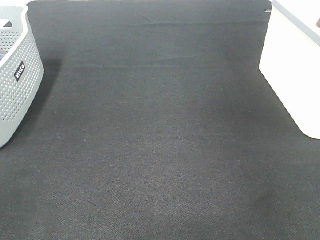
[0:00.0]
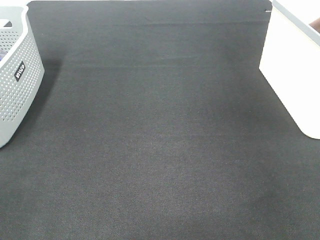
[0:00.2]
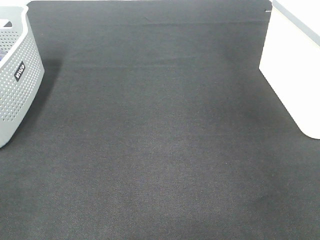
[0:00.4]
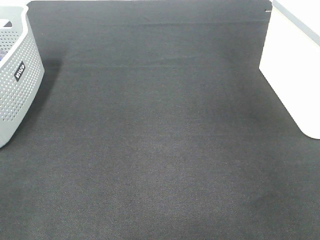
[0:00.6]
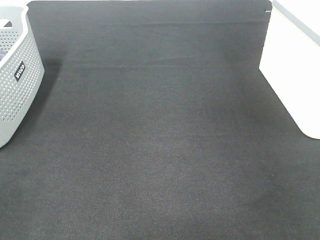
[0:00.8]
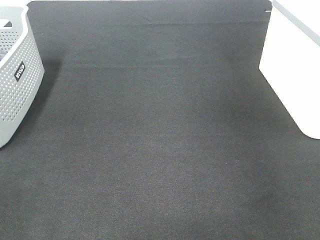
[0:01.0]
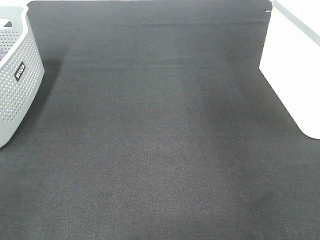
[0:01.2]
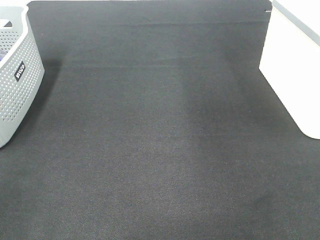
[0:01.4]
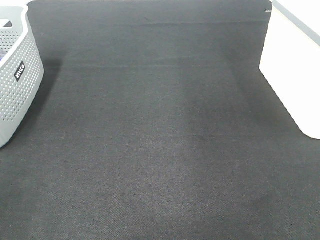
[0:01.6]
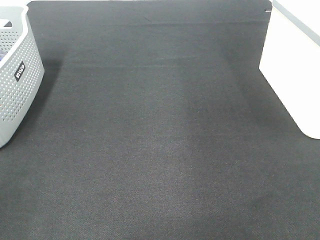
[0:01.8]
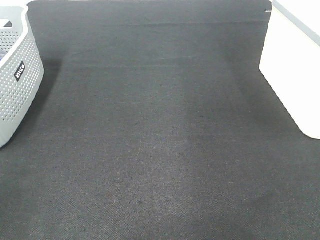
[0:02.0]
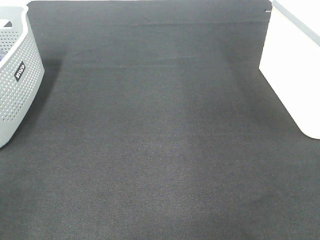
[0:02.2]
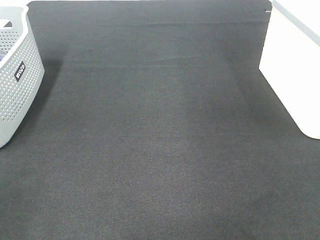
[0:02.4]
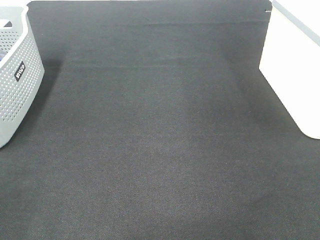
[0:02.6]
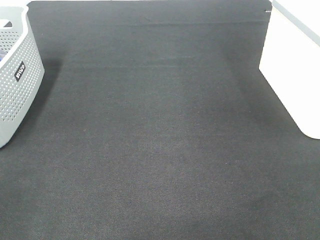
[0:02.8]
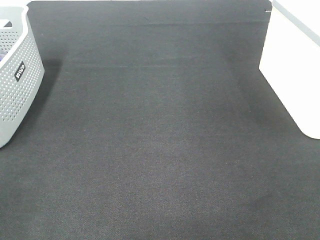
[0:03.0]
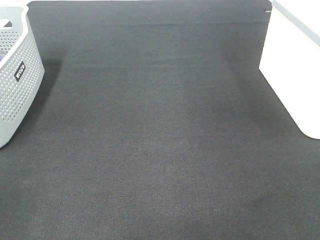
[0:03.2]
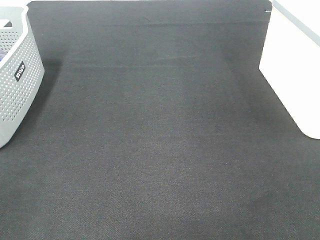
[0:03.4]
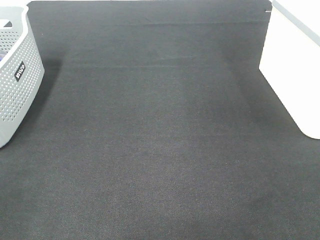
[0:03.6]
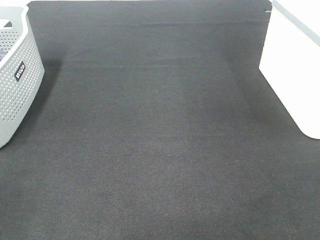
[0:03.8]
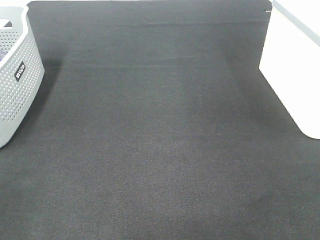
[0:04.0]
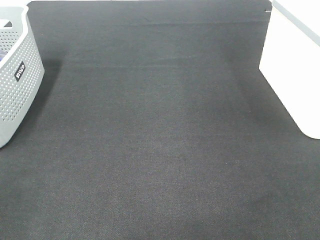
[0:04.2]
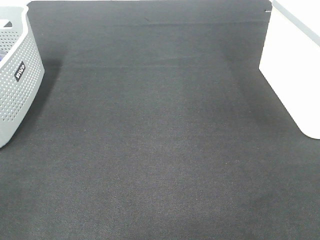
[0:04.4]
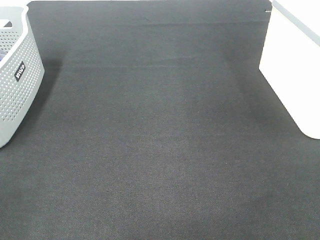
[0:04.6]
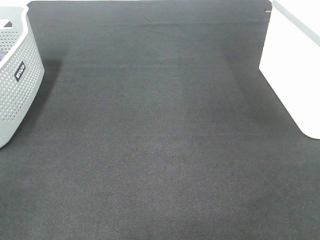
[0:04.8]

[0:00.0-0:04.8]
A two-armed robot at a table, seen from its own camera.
0:03.2 to 0:04.8: Both grippers stay about where they are.
